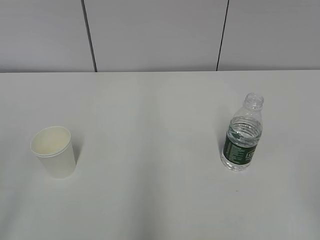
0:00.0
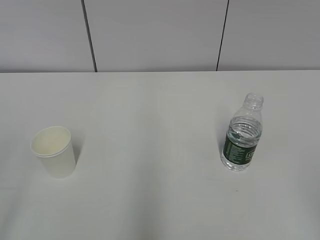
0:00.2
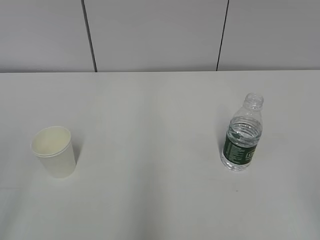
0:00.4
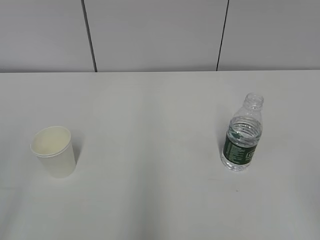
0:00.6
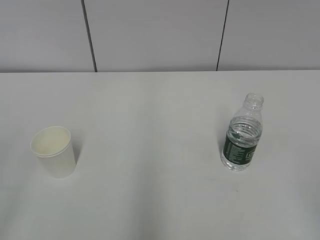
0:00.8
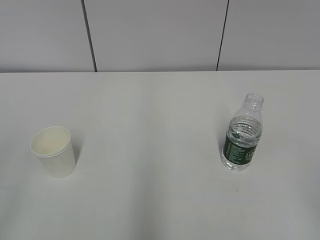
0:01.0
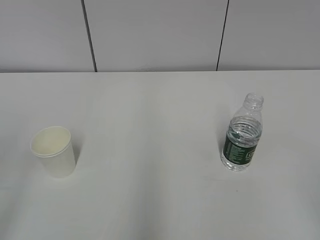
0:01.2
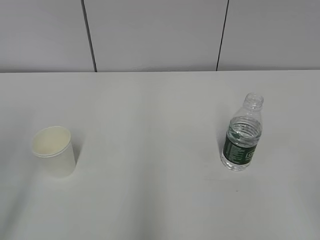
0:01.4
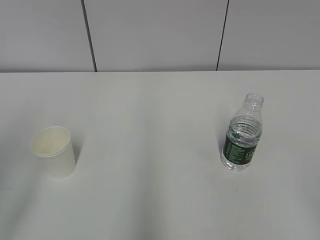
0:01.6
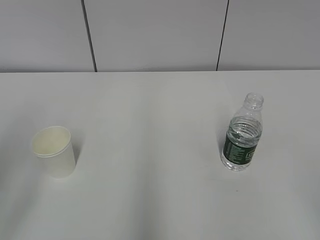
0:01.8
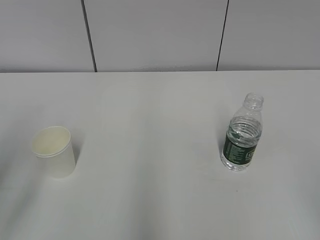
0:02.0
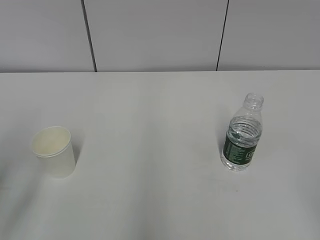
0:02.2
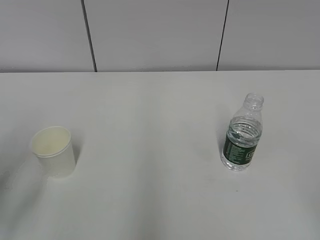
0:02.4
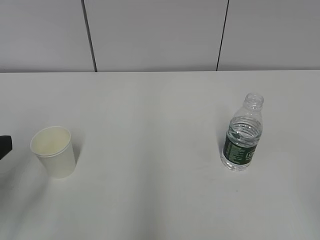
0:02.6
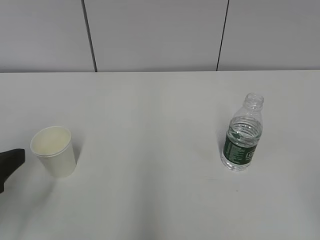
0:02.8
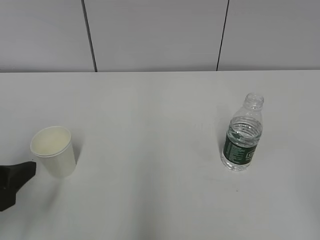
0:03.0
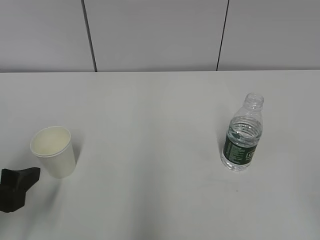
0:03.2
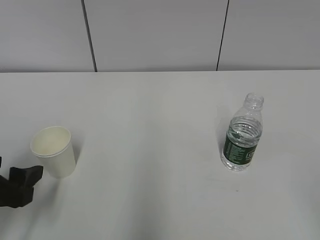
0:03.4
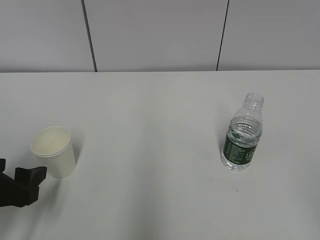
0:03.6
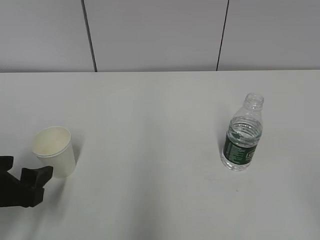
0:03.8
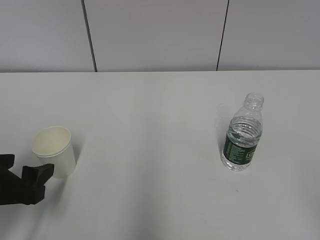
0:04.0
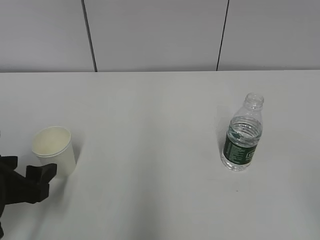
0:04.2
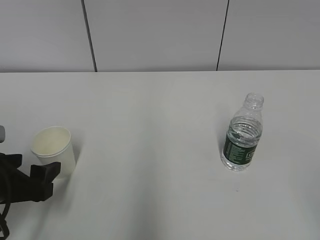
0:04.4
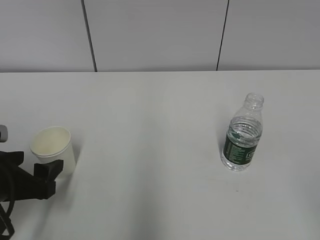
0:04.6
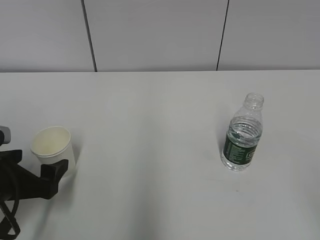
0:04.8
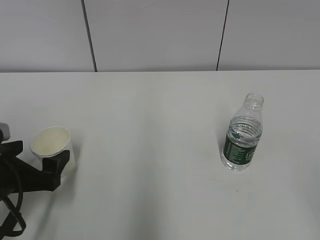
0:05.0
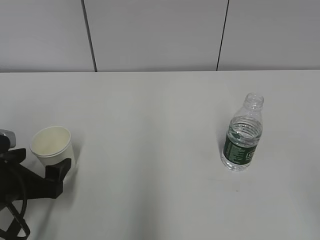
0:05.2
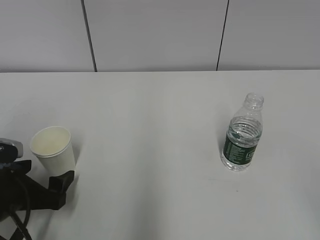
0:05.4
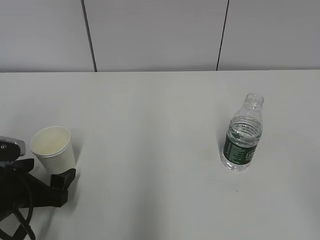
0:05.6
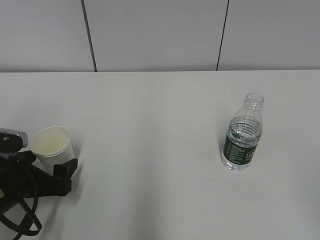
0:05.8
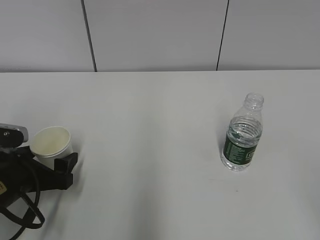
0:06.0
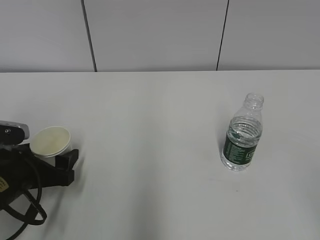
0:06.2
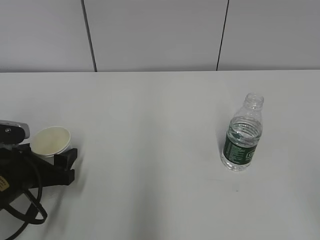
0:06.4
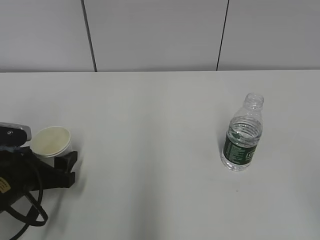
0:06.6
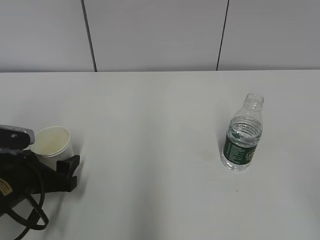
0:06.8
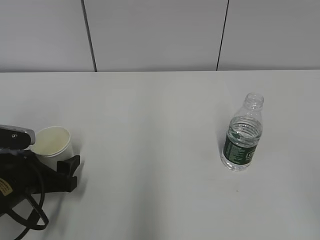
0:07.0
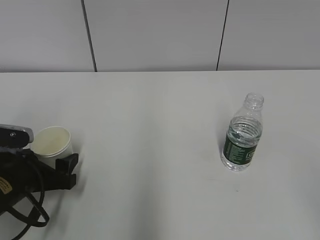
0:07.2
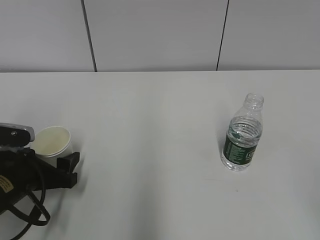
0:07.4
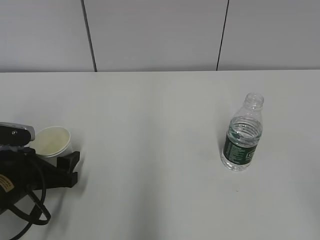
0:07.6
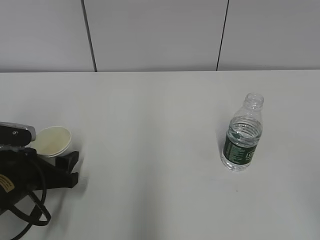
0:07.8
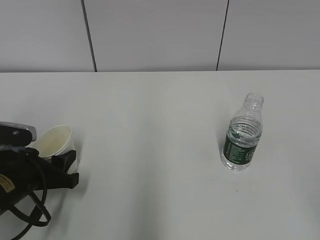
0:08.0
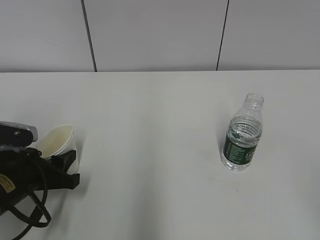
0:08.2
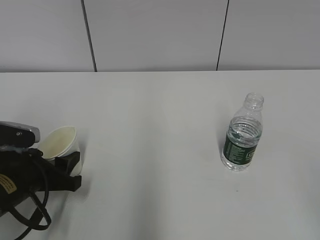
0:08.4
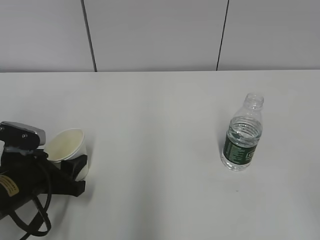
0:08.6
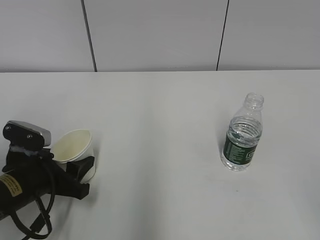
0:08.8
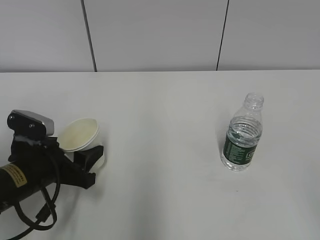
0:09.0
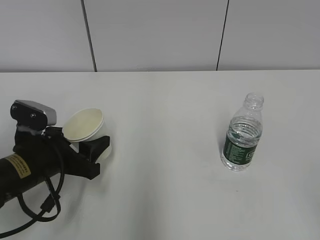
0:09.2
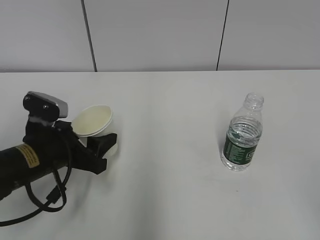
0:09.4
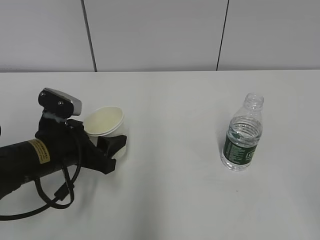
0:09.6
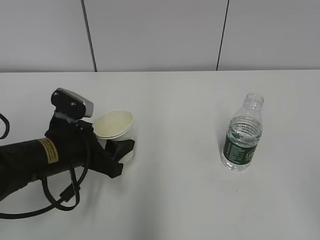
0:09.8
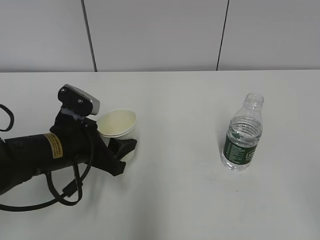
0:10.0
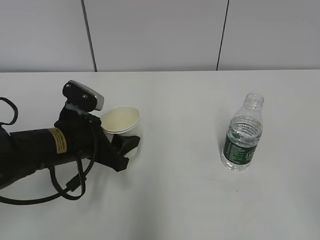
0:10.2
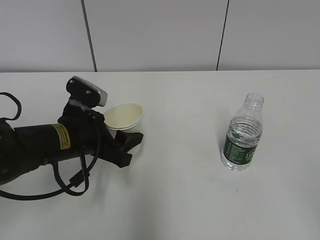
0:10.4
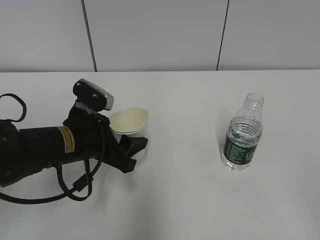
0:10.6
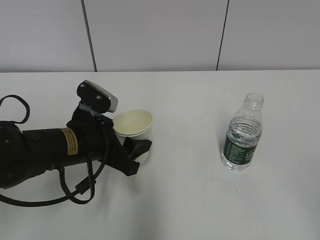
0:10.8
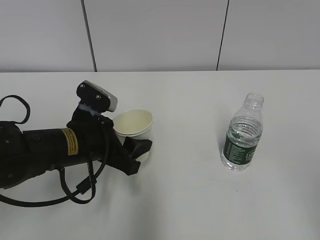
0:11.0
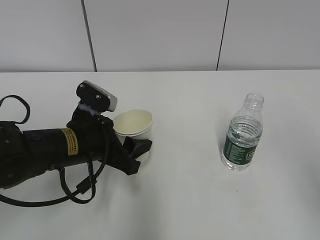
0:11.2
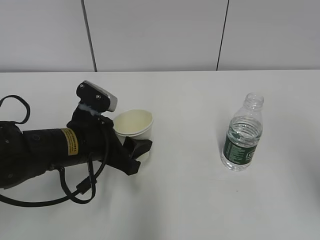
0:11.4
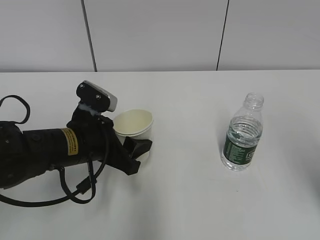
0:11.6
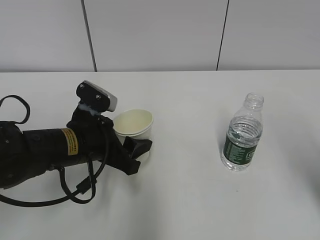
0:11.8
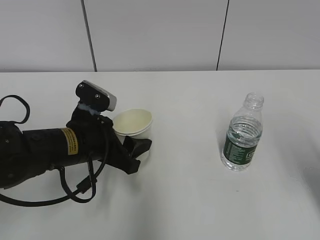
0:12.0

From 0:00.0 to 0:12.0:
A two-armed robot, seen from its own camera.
Step, from 0:00.0 to 0:07.2: Grab the paper cup with the left hand.
From 0:01.6 to 0:03.0: The left gripper heads downward and forward, covering roughly 15 cm.
From 0:03.0 to 0:04.4: The left gripper shifts roughly 5 cm downward.
From 0:04.4 to 0:06.0: The left gripper moves about 5 cm.
From 0:06.0 to 0:07.6: Neither gripper changes place.
From 0:07.6 to 0:09.0: The left gripper closes.
From 0:09.0 to 0:10.4: The left gripper travels to the right by roughly 5 cm.
From 0:10.4 to 0:12.0: The right gripper heads forward, covering roughly 20 cm.

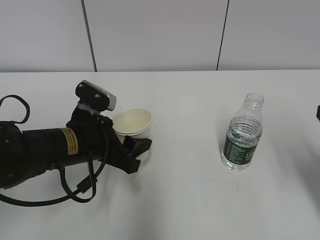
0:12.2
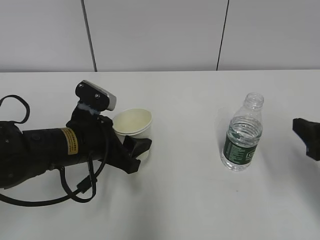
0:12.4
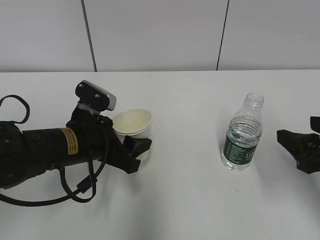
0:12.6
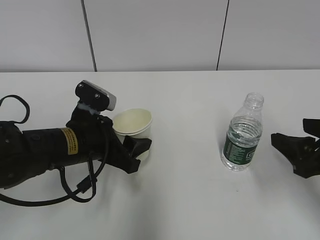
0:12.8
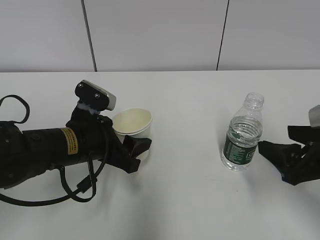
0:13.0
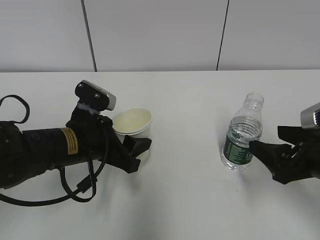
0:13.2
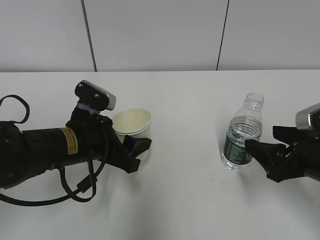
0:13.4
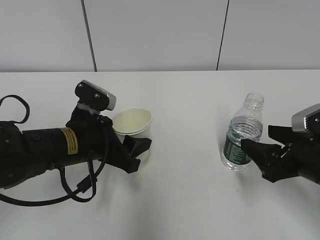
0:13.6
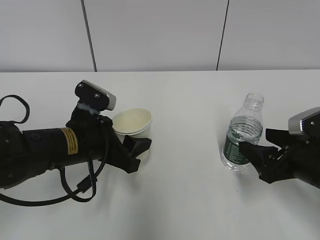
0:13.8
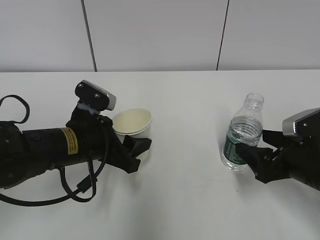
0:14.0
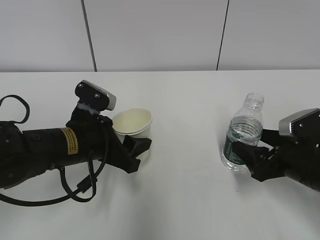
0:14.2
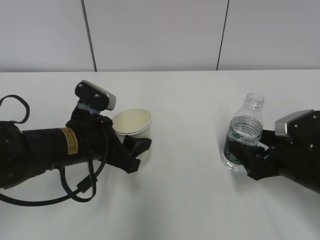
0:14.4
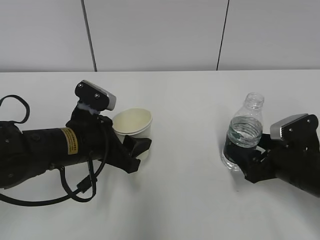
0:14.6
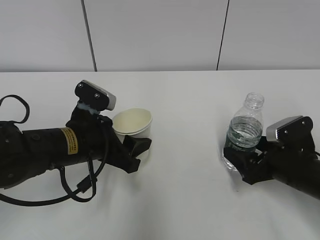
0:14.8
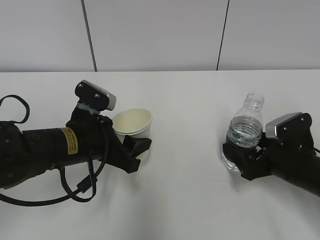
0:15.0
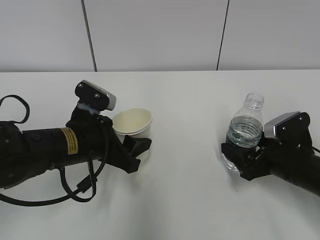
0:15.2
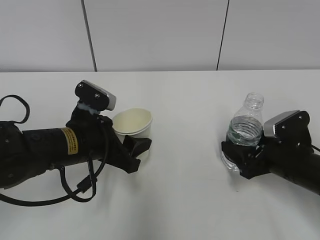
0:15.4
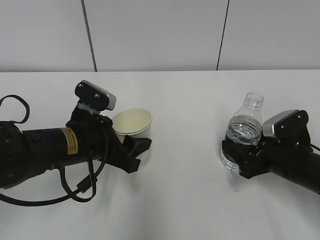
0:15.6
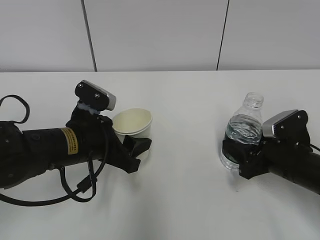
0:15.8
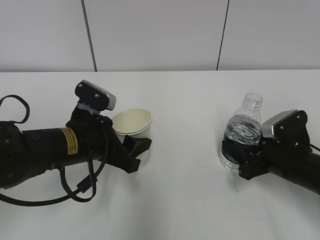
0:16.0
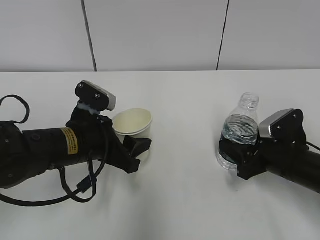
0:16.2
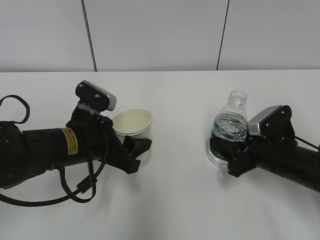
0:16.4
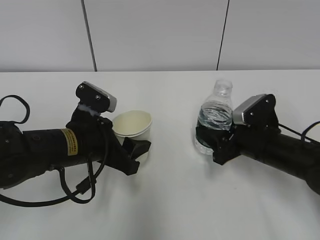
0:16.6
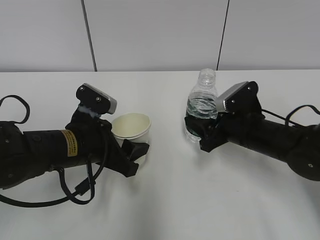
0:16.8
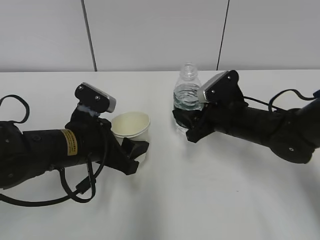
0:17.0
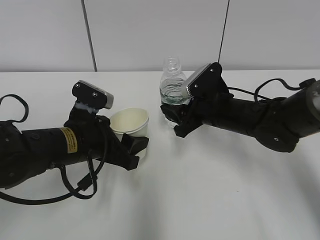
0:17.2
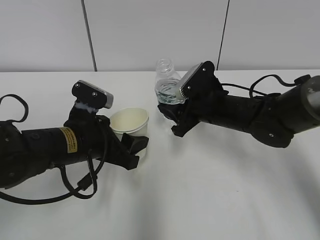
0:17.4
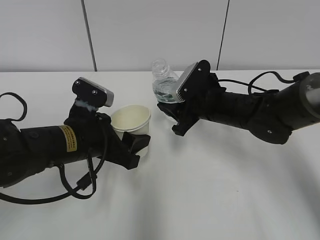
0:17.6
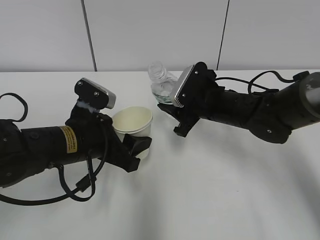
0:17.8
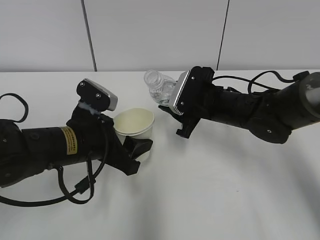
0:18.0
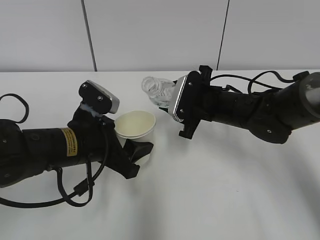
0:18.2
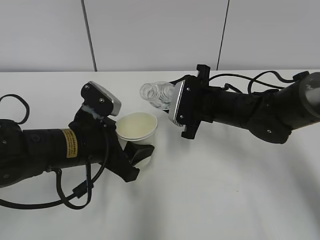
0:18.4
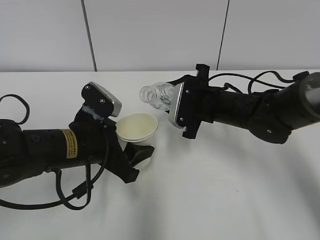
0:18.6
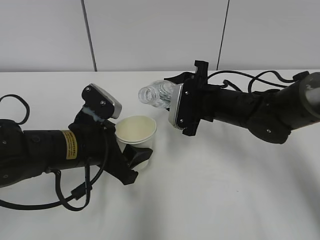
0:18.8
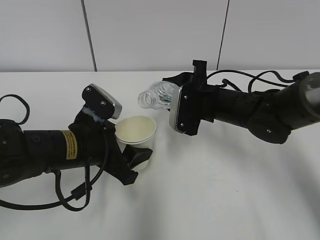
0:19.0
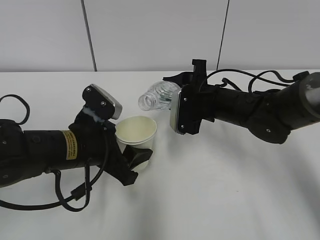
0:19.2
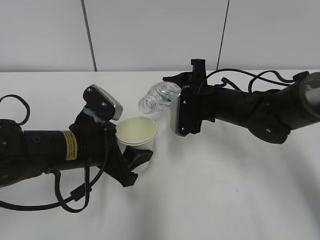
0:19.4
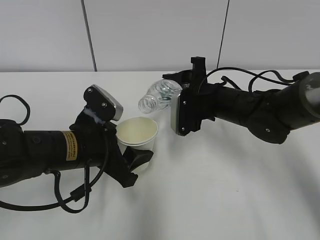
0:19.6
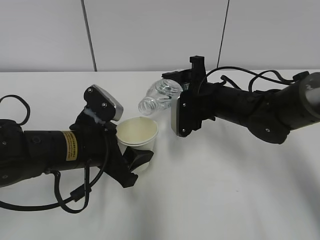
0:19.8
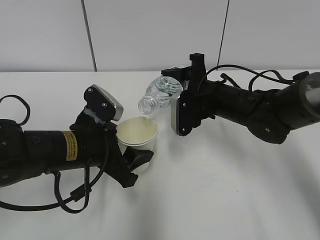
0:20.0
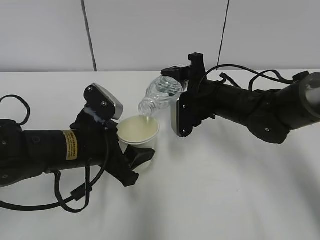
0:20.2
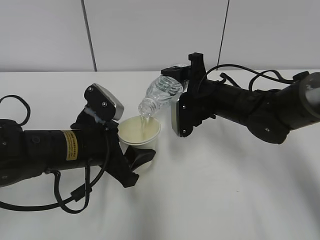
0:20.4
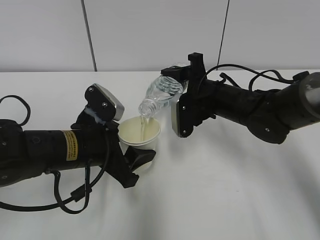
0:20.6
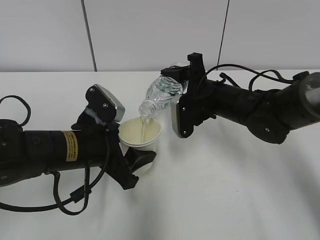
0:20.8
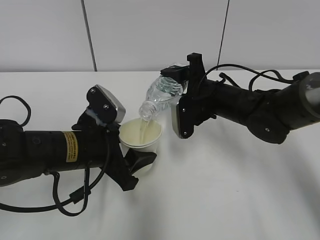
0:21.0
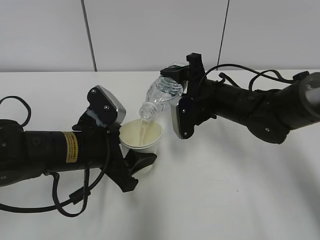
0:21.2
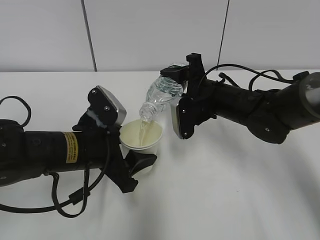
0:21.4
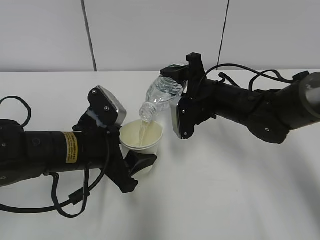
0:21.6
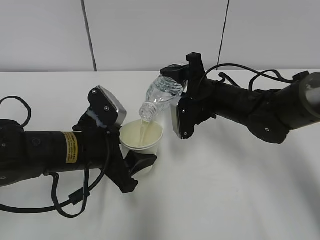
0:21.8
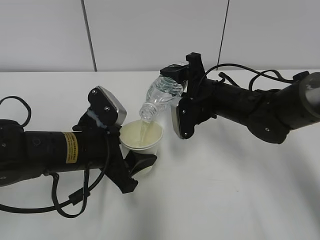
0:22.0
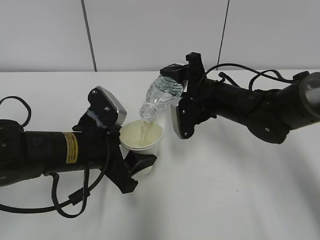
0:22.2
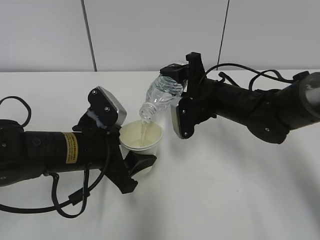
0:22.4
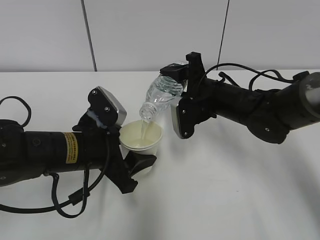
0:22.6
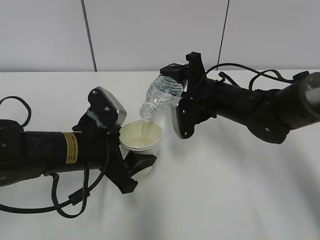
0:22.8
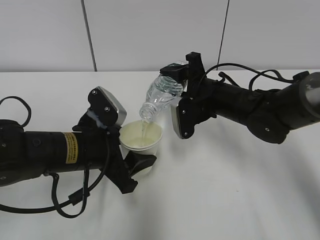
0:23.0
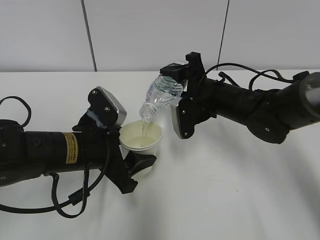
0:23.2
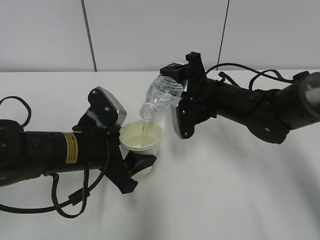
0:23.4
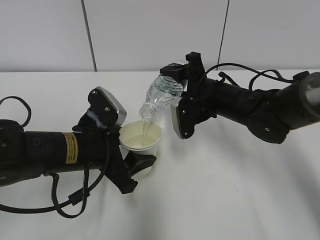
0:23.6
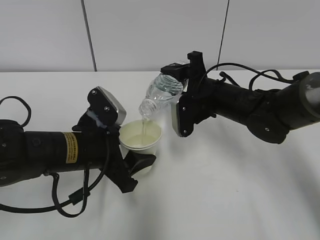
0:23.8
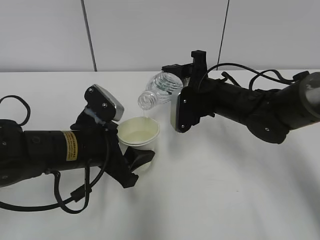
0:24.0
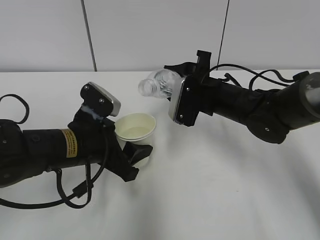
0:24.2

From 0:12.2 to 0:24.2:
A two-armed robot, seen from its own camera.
Step, from 0:17.0 to 0:19.8: Fill water with the left hand.
Step, from 0:17.0 to 0:19.8: Pour water with the right hand.
Step, from 0:20.0 to 0:20.8: Collect water with the right hand.
Step, from 0:21.0 to 0:22.8: Place the paper cup with the left hand.
Step, from 0:23.0 to 0:24.0: Place the water bottle with the right hand.
From 0:12.2 to 0:13.8: The right gripper travels downward by some 10 cm.
From 0:13.8 to 0:15.2: The right gripper ends up roughly 5 cm from where it was.
From 0:15.2 to 0:16.6: The right gripper changes place by some 5 cm, and closes.
From 0:16.6 to 0:18.2: The right gripper goes some 10 cm to the left and forward.
From 0:19.8 to 0:21.2: There are only small adjustments of the grippers.
From 0:21.2 to 0:22.6: Both grippers stay about where they are.
